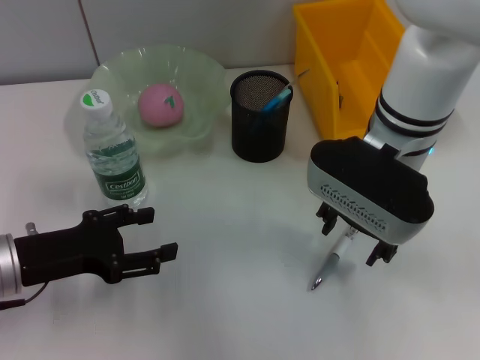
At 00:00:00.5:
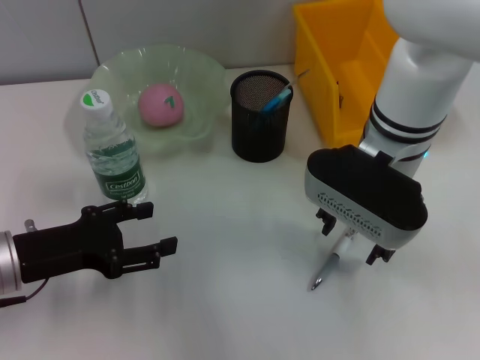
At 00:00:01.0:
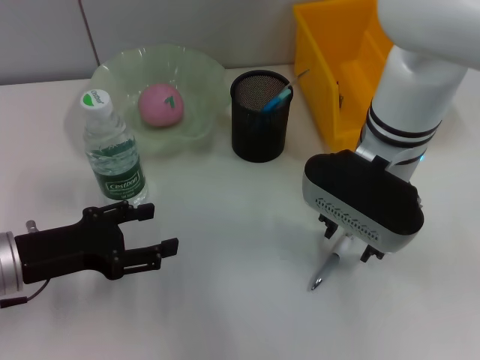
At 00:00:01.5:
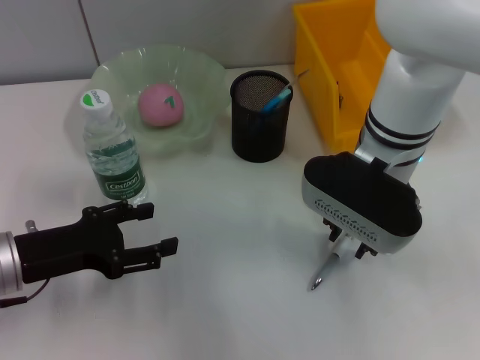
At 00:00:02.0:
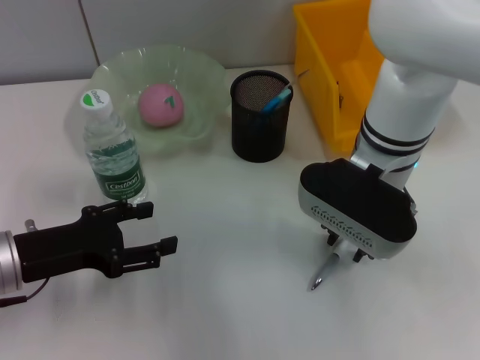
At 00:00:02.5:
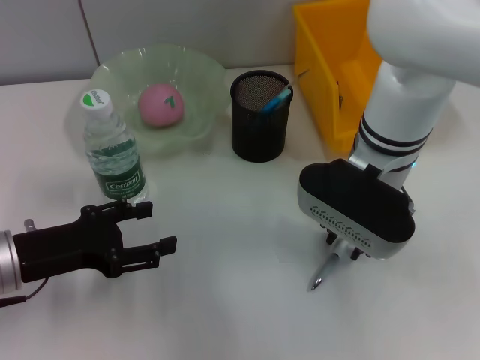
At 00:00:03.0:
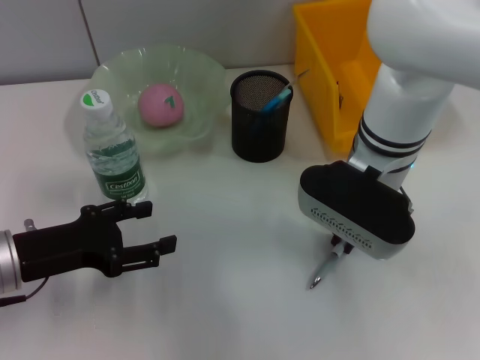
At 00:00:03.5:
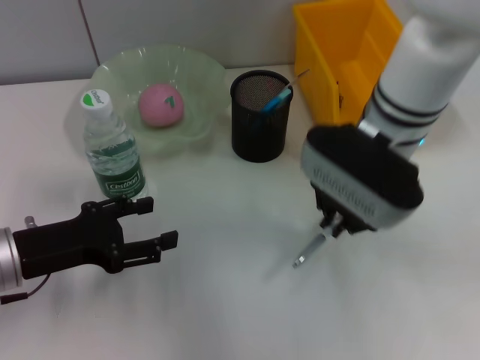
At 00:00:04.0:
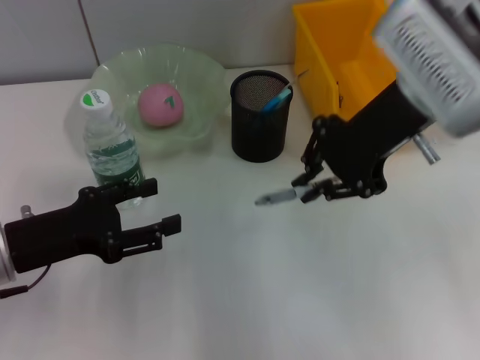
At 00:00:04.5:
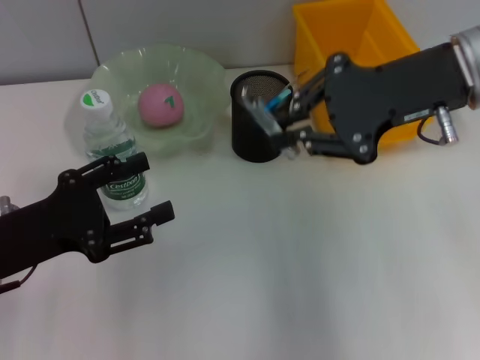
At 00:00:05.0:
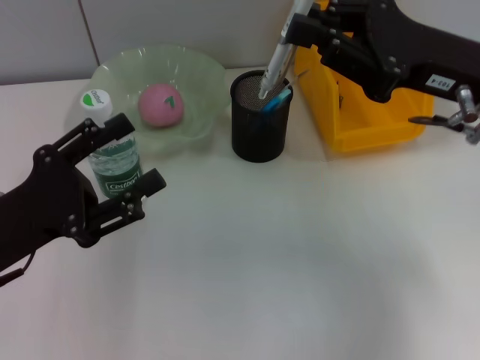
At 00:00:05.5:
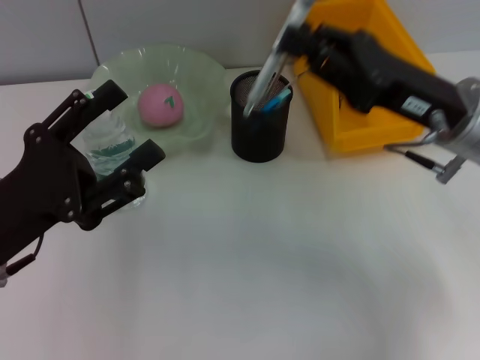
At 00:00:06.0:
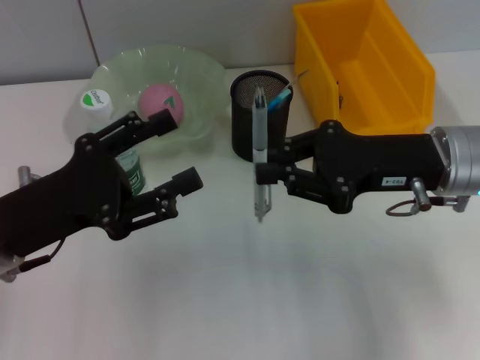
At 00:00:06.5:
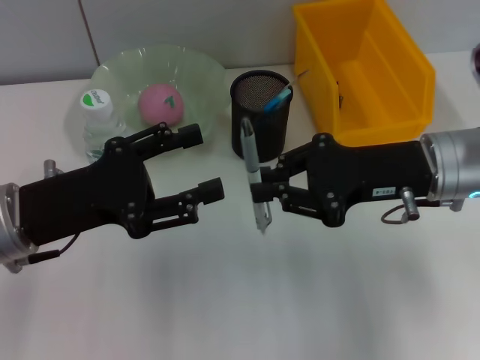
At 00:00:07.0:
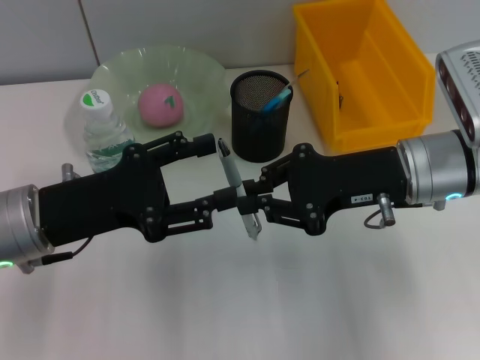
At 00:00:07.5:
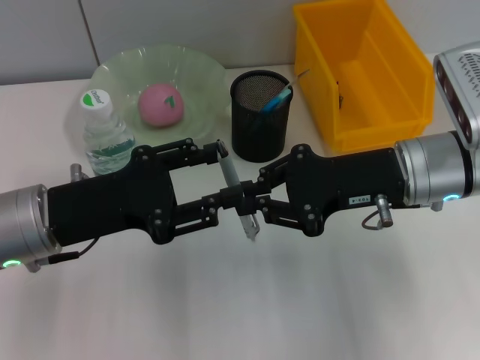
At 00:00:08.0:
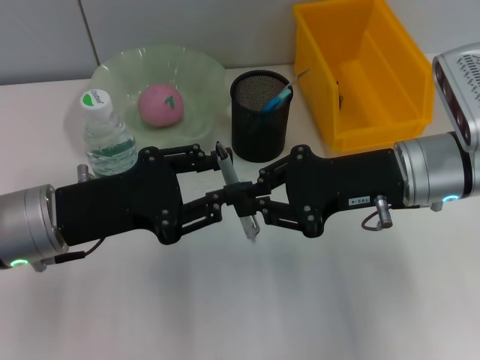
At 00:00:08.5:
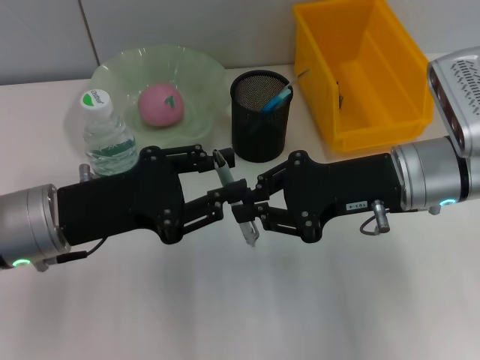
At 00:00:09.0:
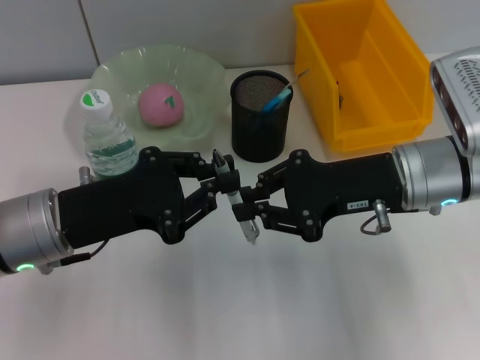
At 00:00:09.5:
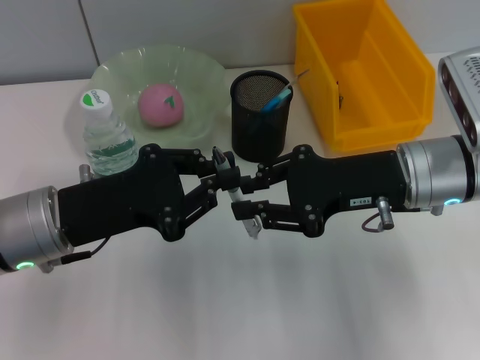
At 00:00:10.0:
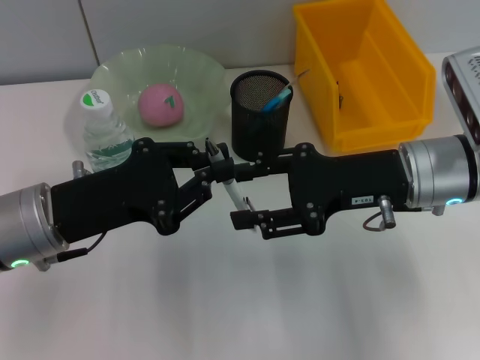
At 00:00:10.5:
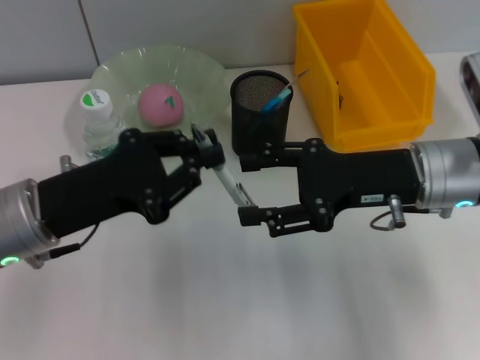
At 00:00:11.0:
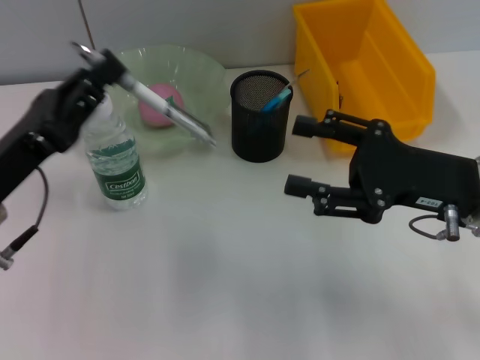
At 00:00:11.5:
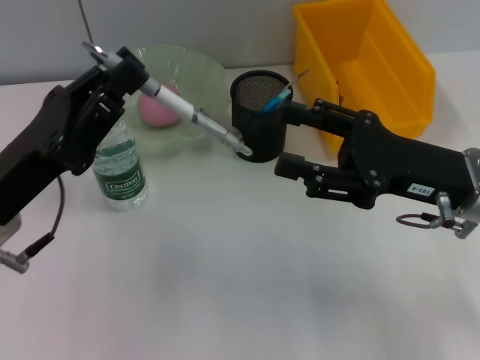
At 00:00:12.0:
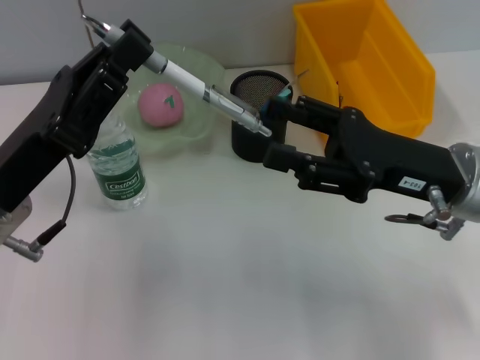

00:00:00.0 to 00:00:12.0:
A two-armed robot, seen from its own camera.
Step, 00:00:00.0 to 00:00:03.0: Grab the gray spring-action pen with the right hand.
Step, 00:00:03.5 to 00:00:10.0: Pass the gray spring-action pen from the right hand to the left hand.
00:00:00.0 to 00:00:02.0: The right gripper closes up.
00:00:02.0 to 00:00:04.0: The right gripper moves upward and to the right, about 10 cm, and closes up.
00:00:04.0 to 00:00:06.0: The right gripper goes about 10 cm downward.
00:00:08.0 to 00:00:10.0: The right gripper opens up. Meanwhile the left gripper closes its fingers.

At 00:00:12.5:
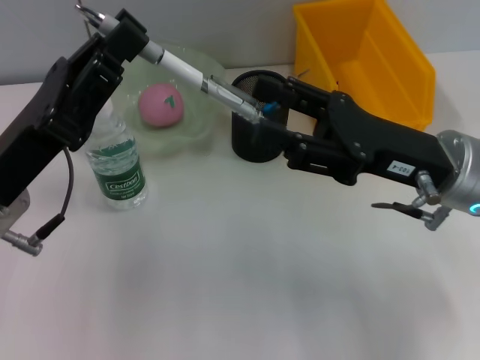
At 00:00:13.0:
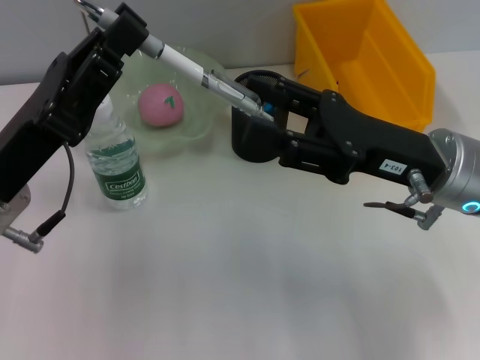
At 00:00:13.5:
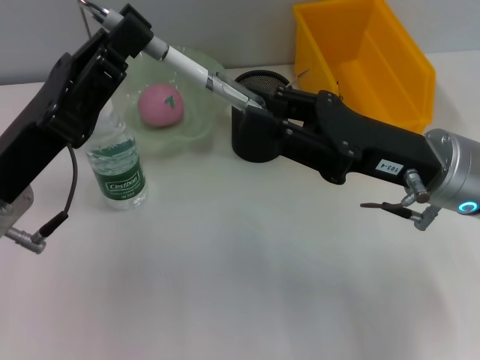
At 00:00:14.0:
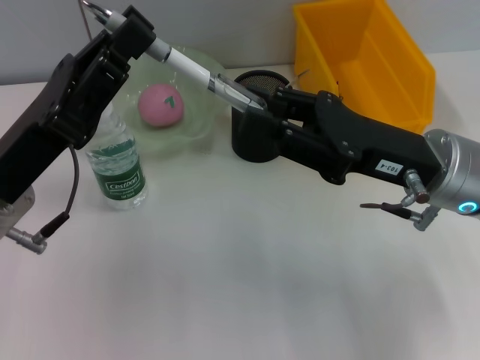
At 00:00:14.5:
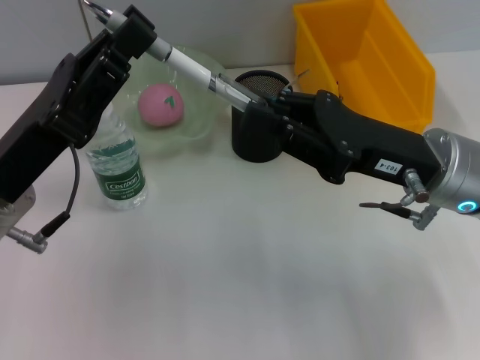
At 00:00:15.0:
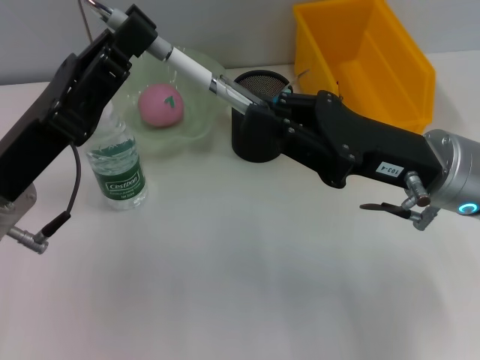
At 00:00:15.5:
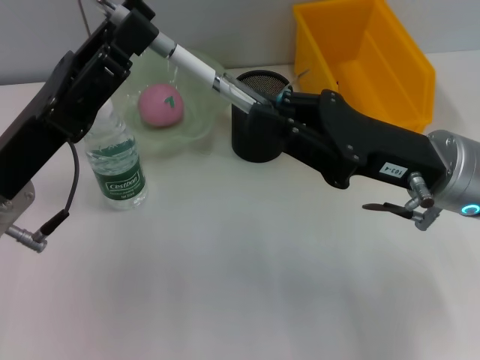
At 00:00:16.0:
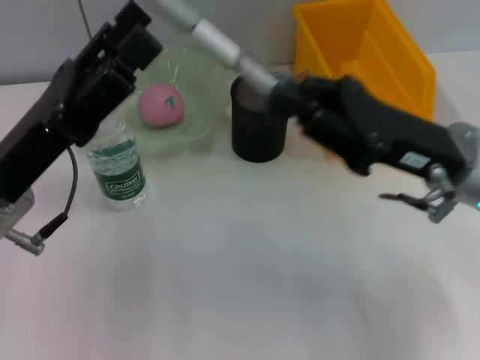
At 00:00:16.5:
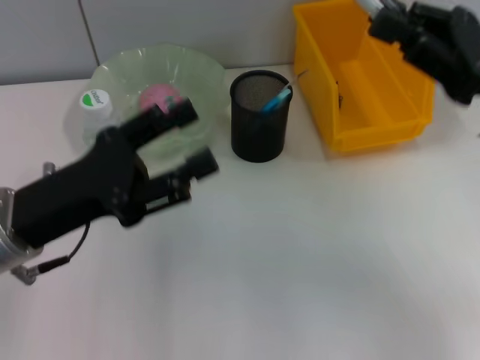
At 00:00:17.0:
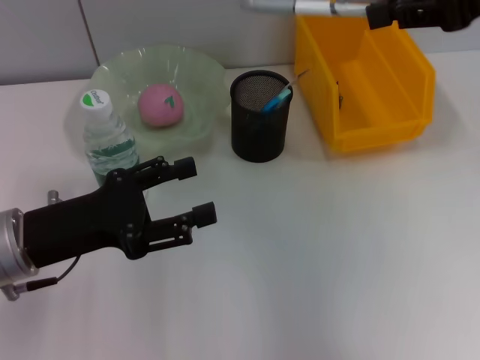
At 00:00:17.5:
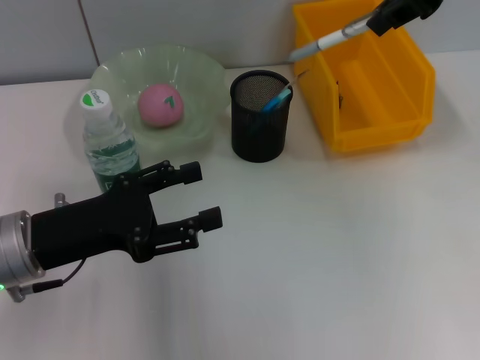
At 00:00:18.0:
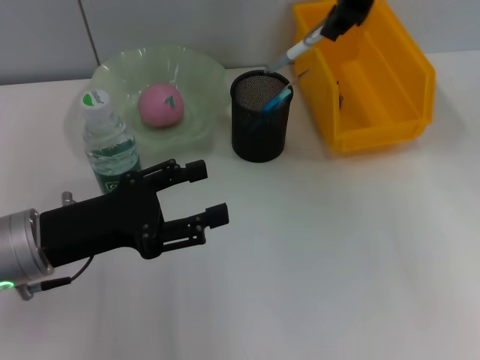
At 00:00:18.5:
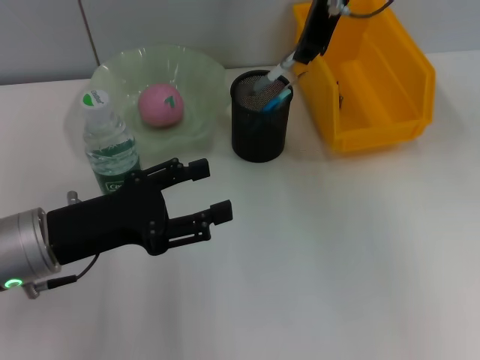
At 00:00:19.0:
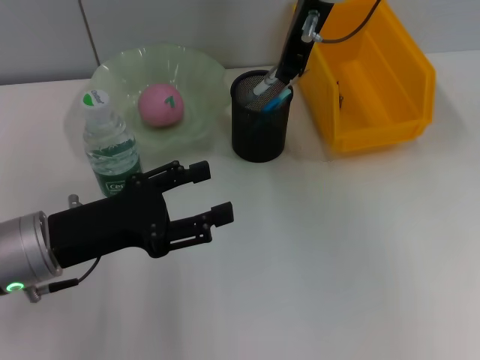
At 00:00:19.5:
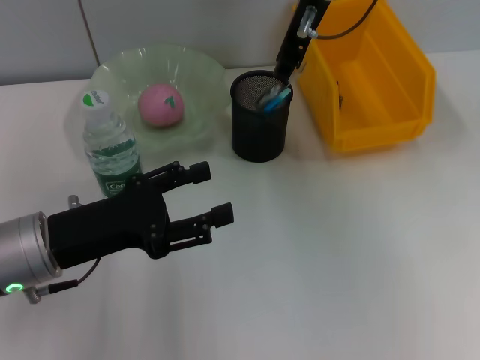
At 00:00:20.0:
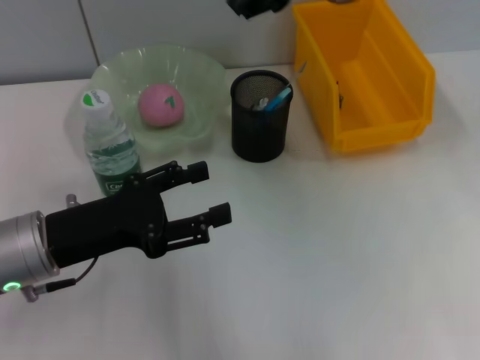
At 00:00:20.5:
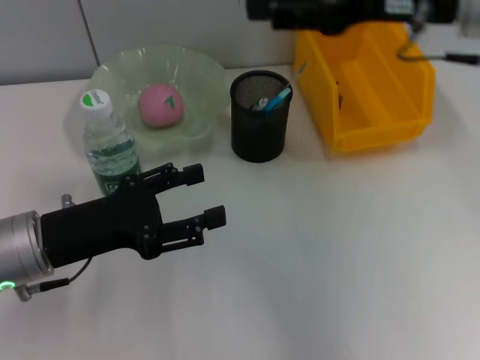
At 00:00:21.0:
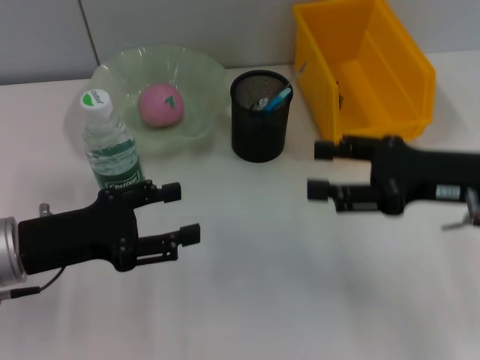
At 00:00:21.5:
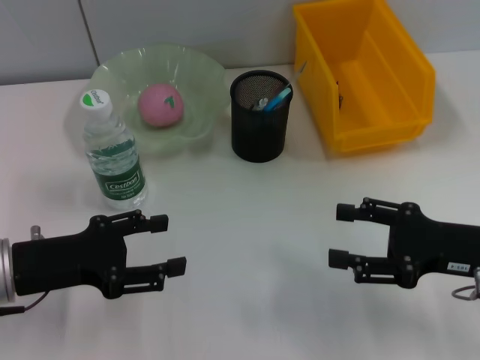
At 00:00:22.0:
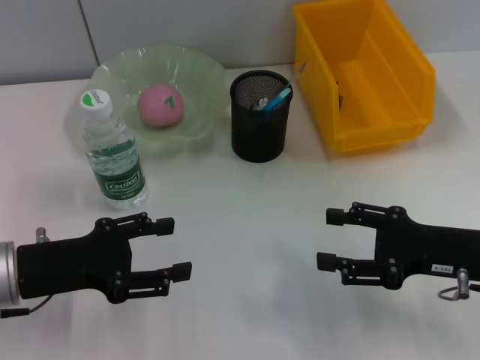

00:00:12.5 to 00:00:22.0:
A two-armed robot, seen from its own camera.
Step, 00:00:12.5 to 00:00:16.0: Pass the gray spring-action pen from the left hand to the right hand.
Step, 00:00:16.5 to 00:00:19.5: Place the gray spring-action pen into the pen holder with the right hand.
00:00:12.5 to 00:00:14.5: The right gripper closes.
00:00:14.5 to 00:00:16.5: The left gripper opens up. Meanwhile the right gripper travels to the right and upward by about 10 cm.
00:00:16.5 to 00:00:18.0: The right gripper goes roughly 25 cm upward, to the left and forward.
00:00:18.0 to 00:00:20.0: The right gripper opens its fingers.
00:00:20.0 to 00:00:22.0: The right gripper moves downward, backward and to the right, some 30 cm.
